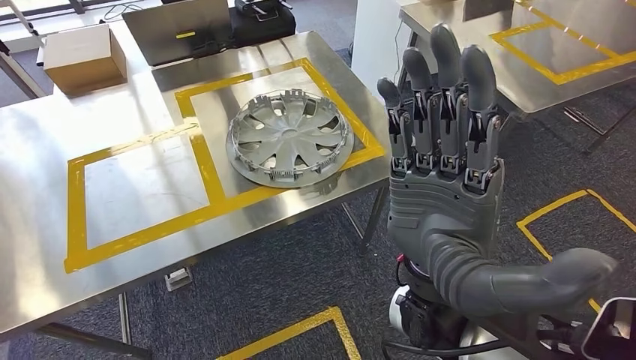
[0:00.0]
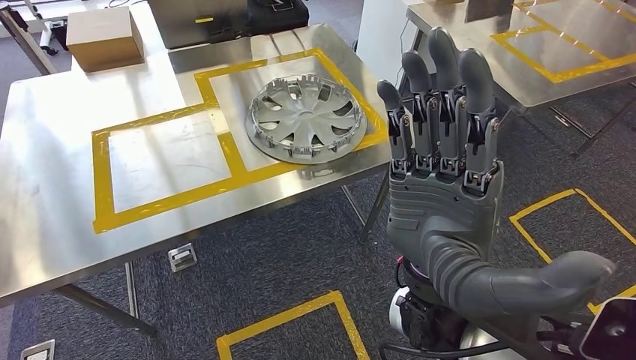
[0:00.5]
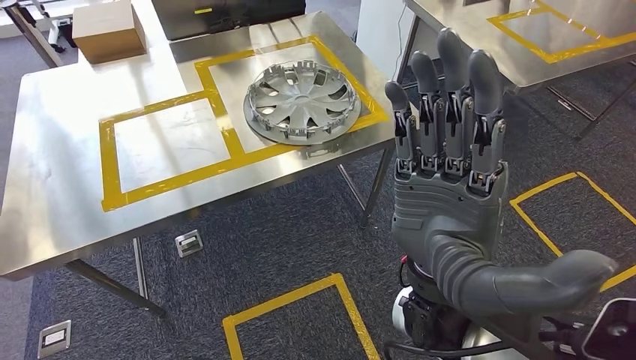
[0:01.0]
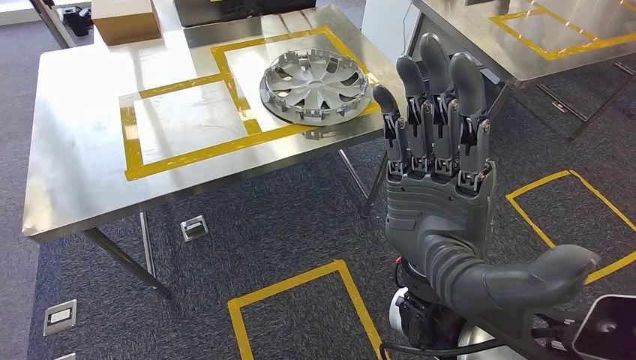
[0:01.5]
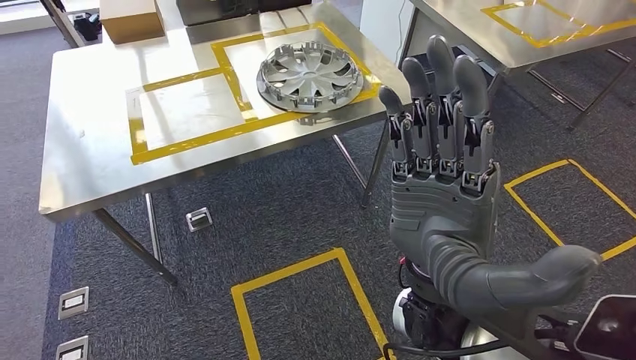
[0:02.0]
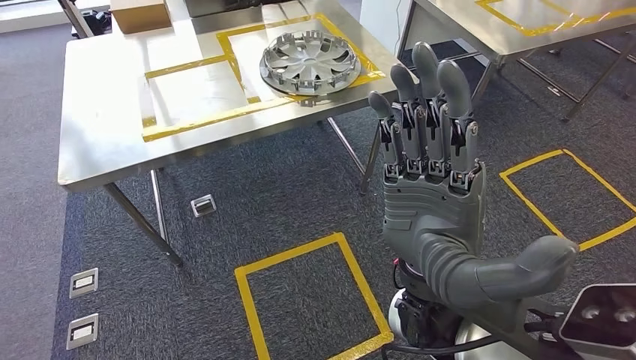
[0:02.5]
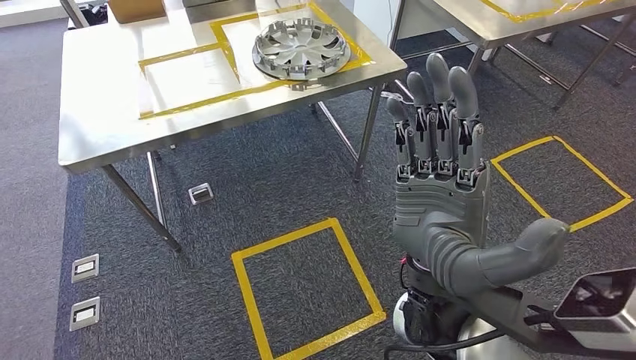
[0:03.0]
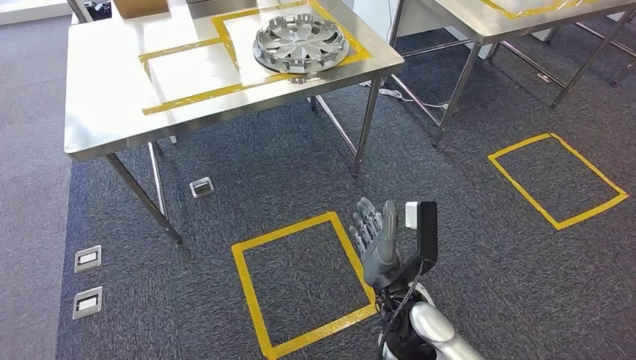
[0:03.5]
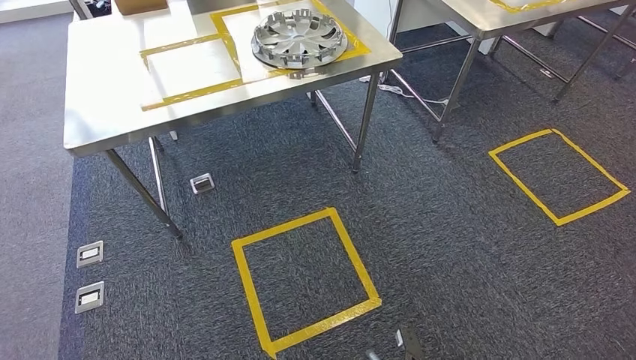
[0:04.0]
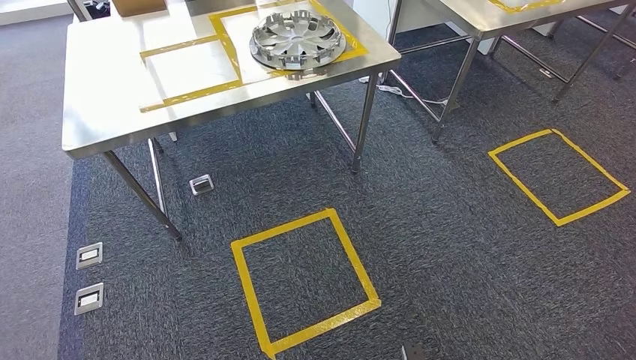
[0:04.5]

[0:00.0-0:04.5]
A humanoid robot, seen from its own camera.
Step, 0:00.0 to 0:04.5: Move to the initial position of the shelf.
